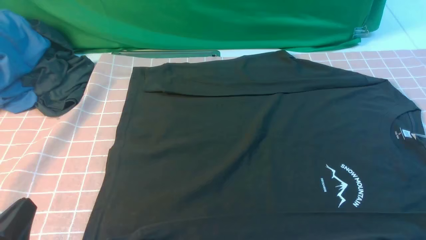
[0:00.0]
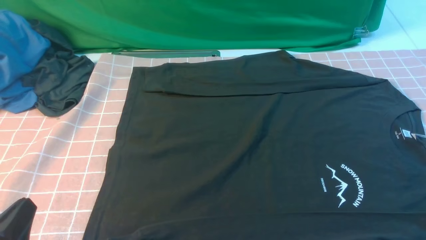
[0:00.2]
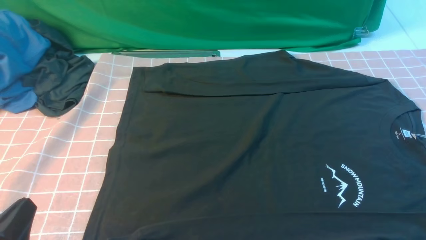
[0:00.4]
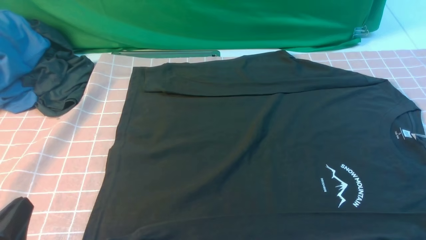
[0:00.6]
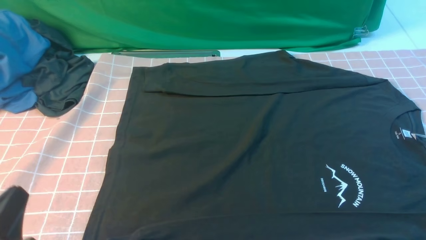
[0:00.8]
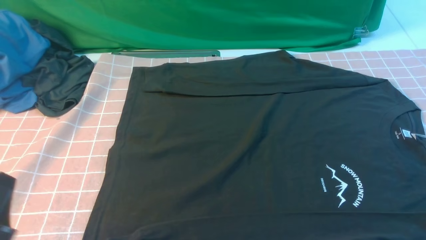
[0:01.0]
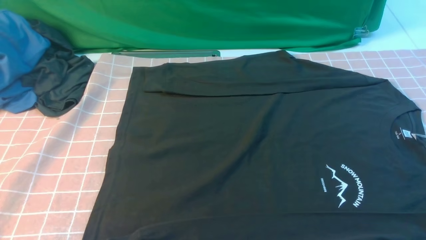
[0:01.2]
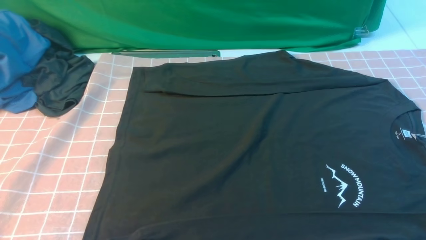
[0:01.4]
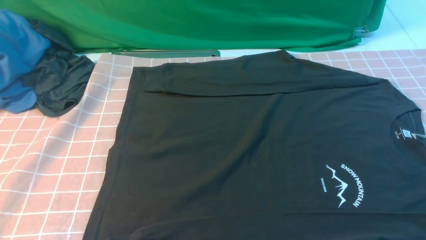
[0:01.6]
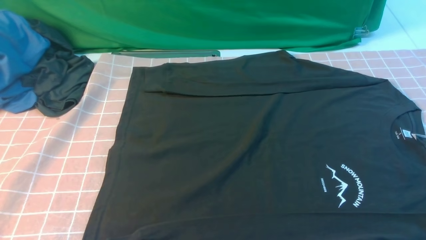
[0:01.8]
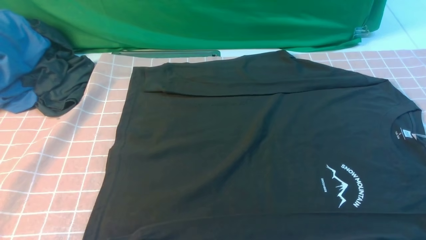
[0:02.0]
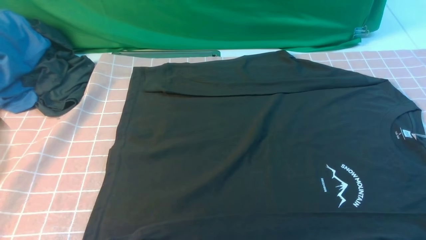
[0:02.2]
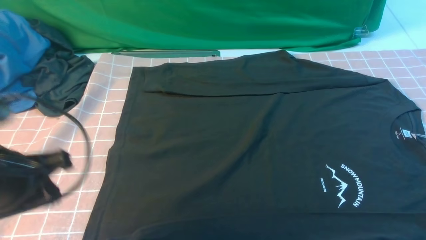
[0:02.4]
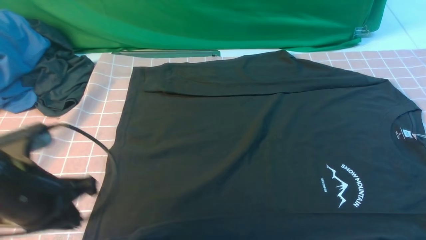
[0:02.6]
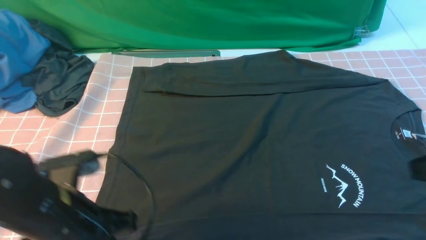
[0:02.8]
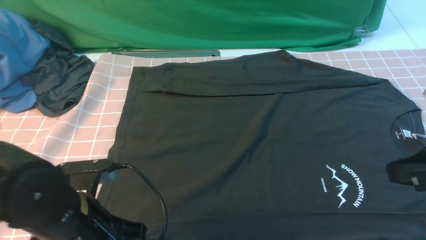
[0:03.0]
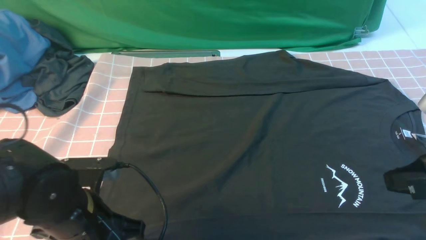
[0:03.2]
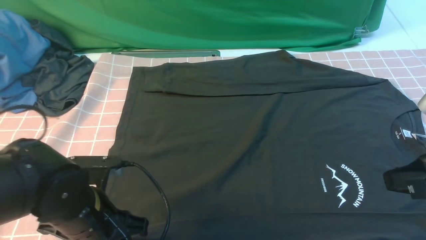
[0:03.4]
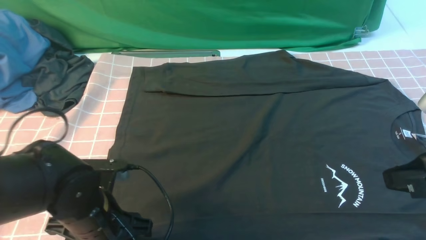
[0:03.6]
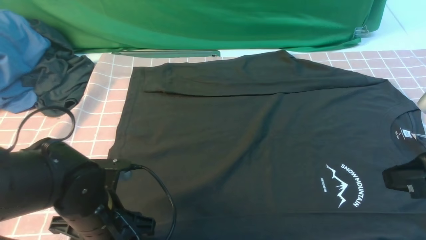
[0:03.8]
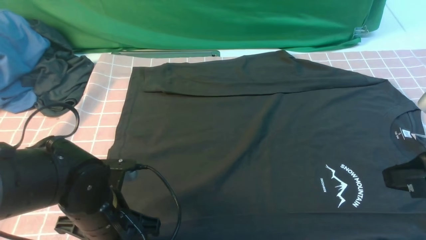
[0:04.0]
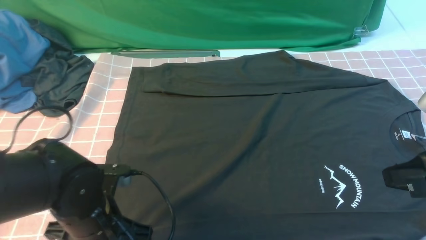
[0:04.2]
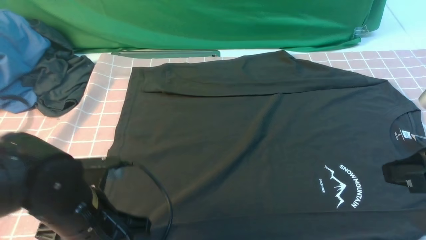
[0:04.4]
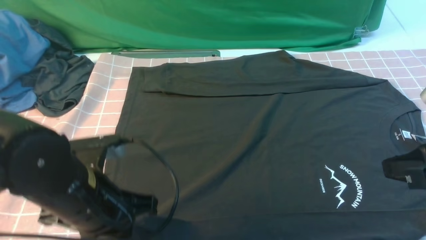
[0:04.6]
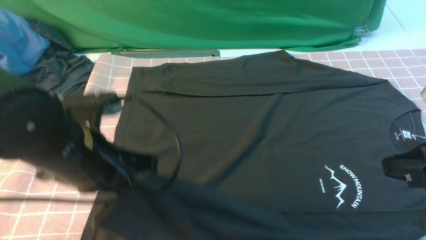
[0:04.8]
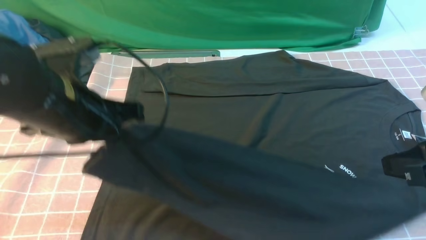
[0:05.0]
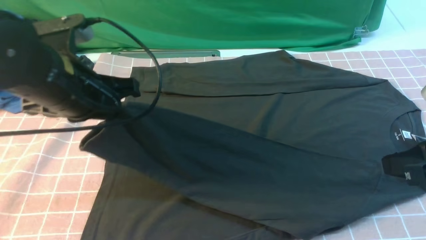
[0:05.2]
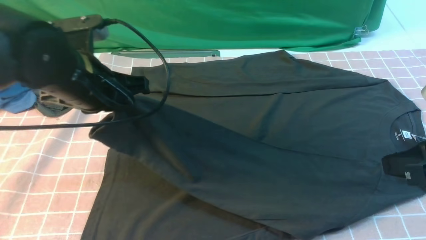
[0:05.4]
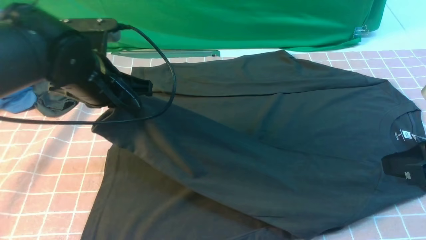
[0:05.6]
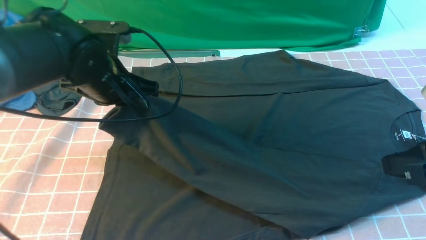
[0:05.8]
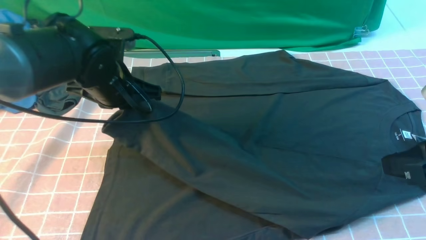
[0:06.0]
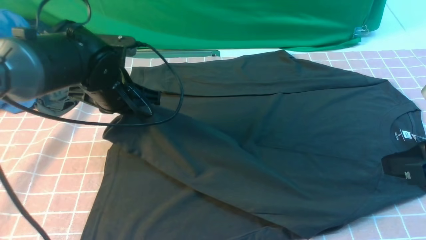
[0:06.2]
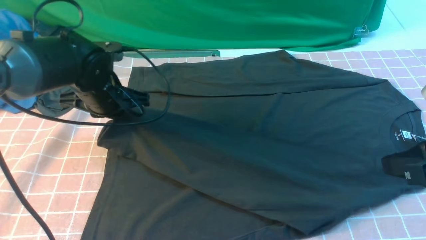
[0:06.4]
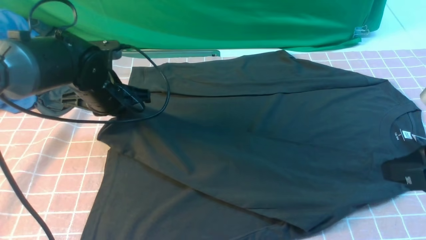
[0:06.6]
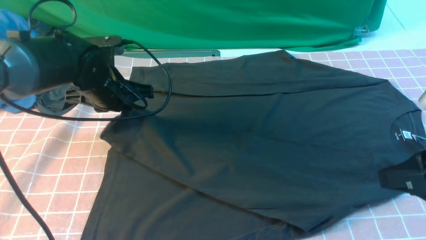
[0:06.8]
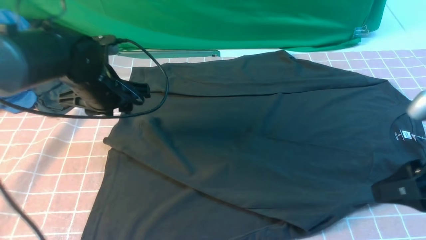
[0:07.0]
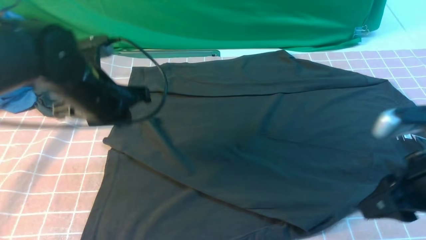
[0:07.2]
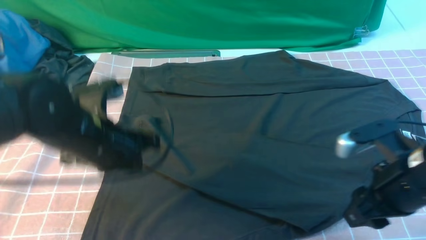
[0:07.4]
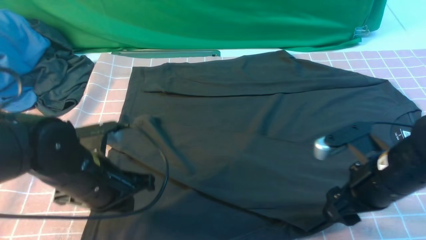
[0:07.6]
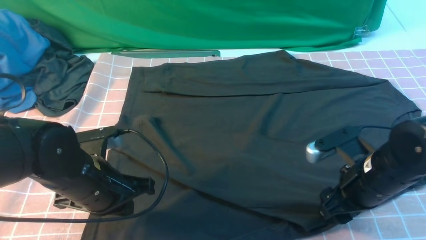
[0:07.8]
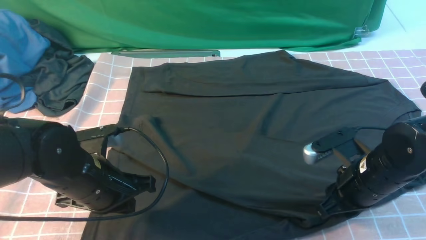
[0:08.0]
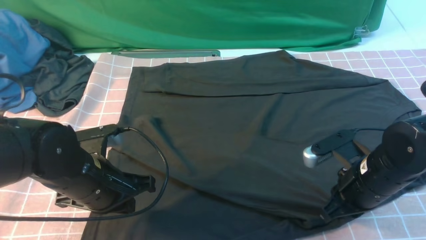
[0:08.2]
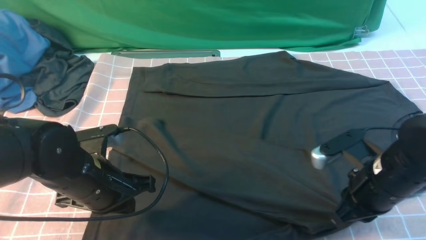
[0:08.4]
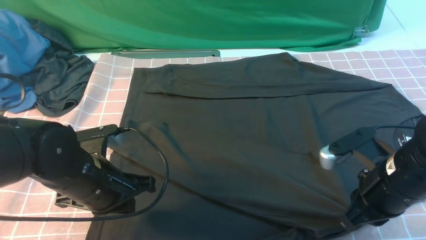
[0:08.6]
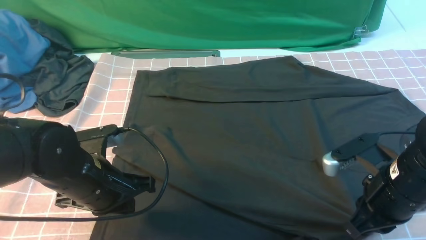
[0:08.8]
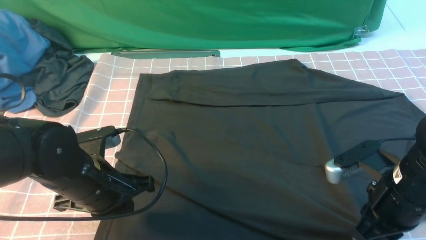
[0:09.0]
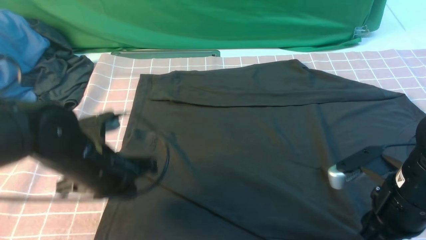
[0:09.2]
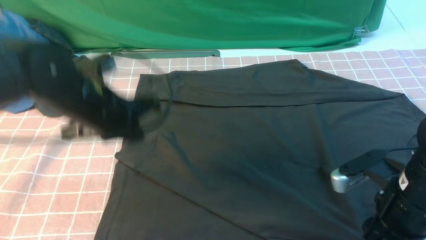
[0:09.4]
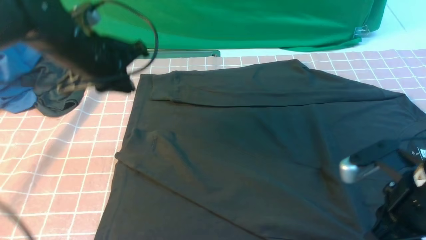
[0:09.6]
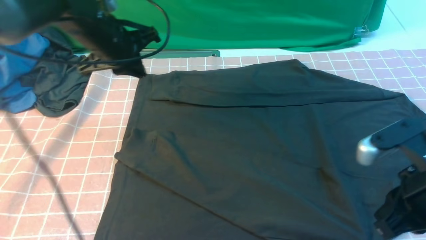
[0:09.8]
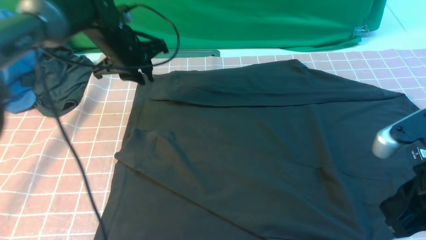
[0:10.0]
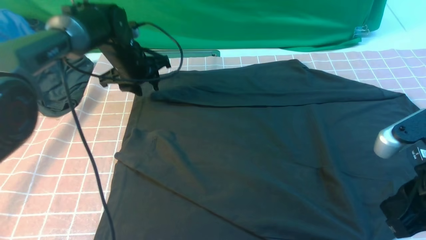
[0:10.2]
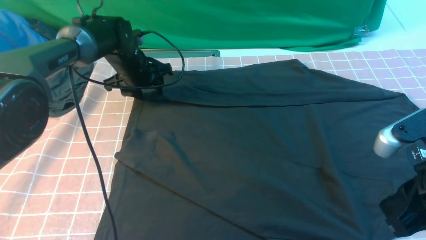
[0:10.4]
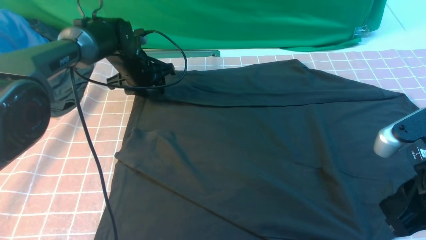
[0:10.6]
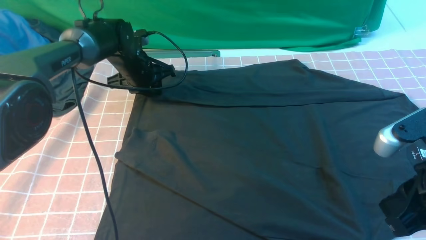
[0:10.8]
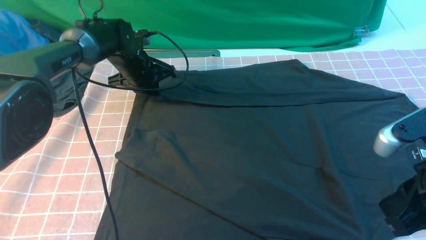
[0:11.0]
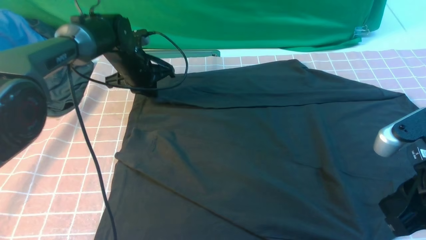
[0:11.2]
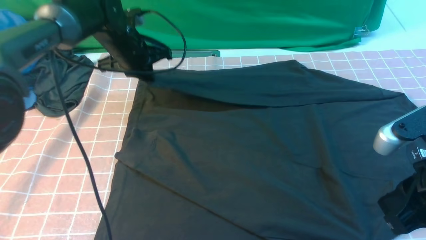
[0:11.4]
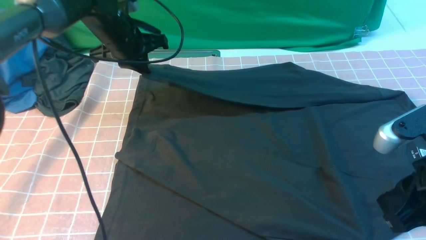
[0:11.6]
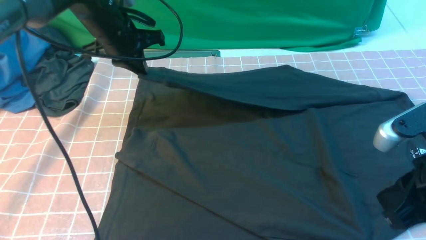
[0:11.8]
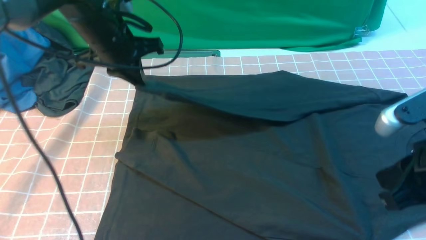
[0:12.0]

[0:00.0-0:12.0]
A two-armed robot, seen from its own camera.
Step, 0:00.0 to 0:04.6: use the left arm to clamp the cuff closest to it.
Step, 0:04.8 to 0:06.8: use the left arm to drag and place the cuff at the centered position on the left edge of the fabric.
Step, 0:07.2 to 0:11.2: use the left arm to clamp the cuff farthest from it.
0:00.0 to 0:01.6: The left gripper is displaced upward by some 5 cm.
0:01.6 to 0:03.0: The left gripper goes about 15 cm forward, to the right and downward, while the right gripper is displaced forward and upward by roughly 15 cm, and closes up.
0:03.0 to 0:04.4: The left gripper opens, then closes once more.
0:04.4 to 0:06.0: The left gripper shifts some 15 cm forward.
0:06.0 to 0:07.6: The left gripper is displaced backward by some 10 cm, and opens, then closes again, while the right gripper travels downward, forward and to the left by approximately 15 cm, and opens up.
0:07.6 to 0:09.0: The right gripper closes its fingers.
0:09.0 to 0:10.4: The right gripper travels upward by approximately 10 cm; the left gripper heads forward, covering approximately 25 cm, and opens up.
0:10.4 to 0:12.0: The left gripper moves upward and backward, some 15 cm, and closes its fingers.

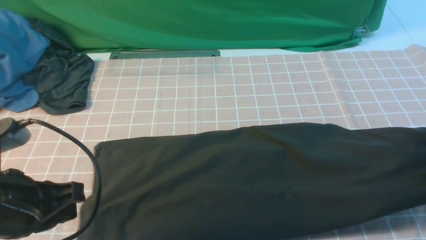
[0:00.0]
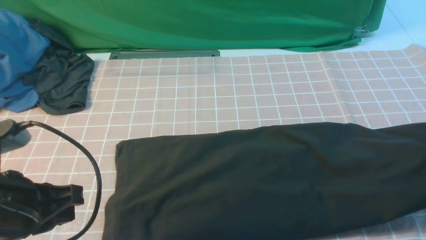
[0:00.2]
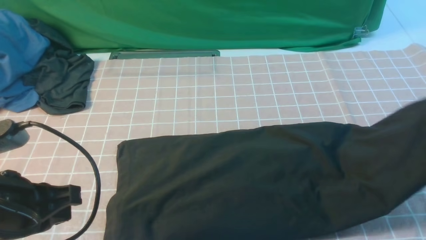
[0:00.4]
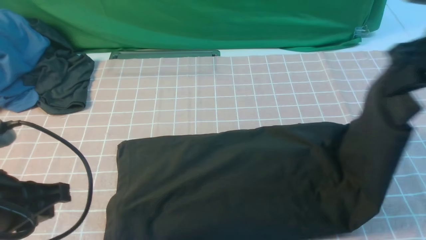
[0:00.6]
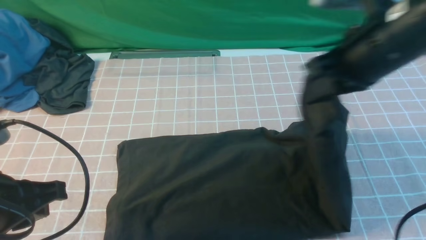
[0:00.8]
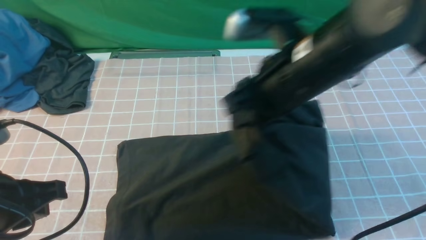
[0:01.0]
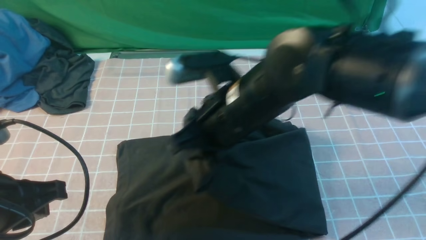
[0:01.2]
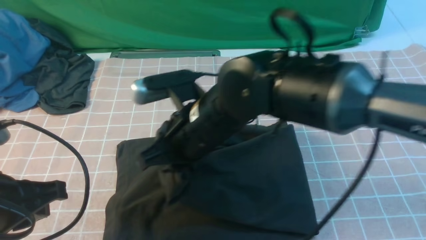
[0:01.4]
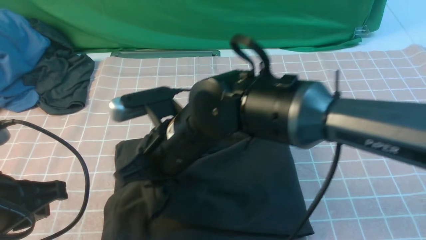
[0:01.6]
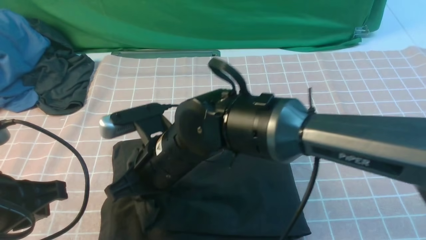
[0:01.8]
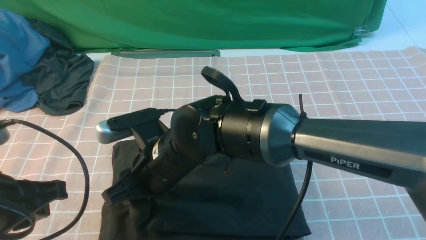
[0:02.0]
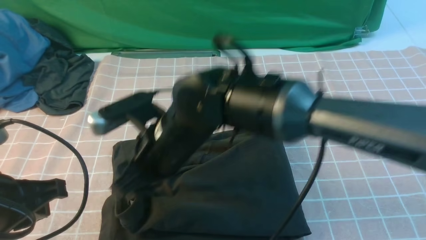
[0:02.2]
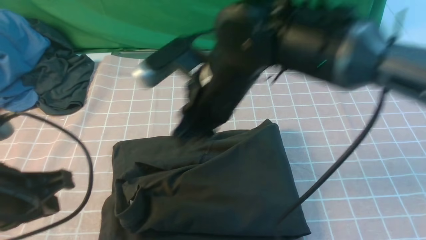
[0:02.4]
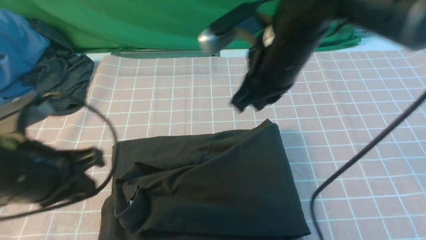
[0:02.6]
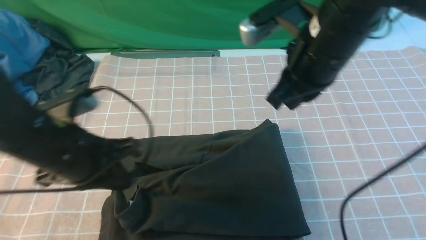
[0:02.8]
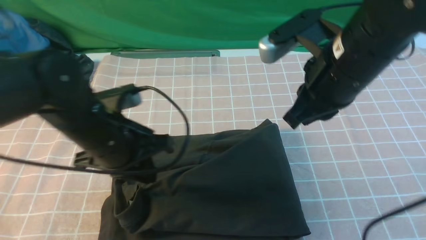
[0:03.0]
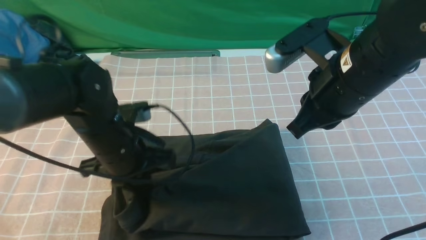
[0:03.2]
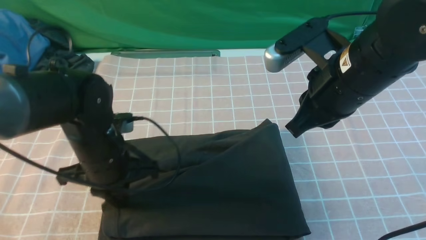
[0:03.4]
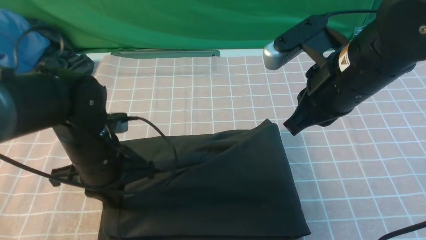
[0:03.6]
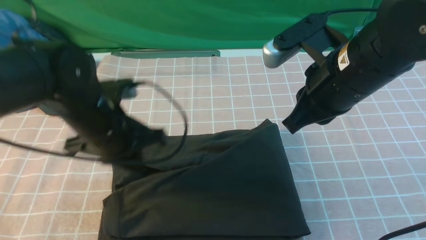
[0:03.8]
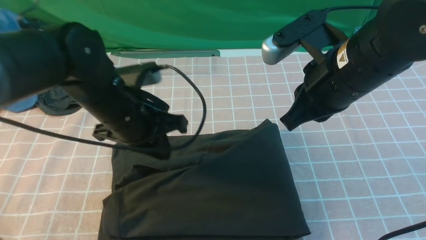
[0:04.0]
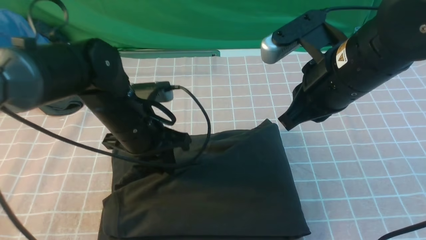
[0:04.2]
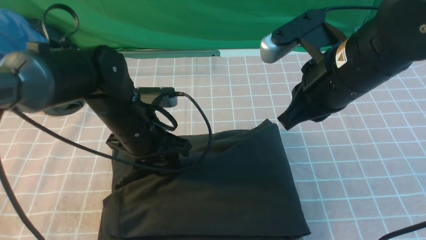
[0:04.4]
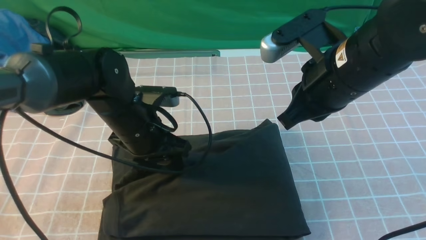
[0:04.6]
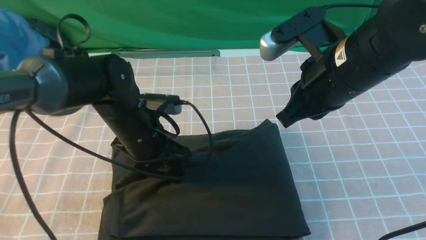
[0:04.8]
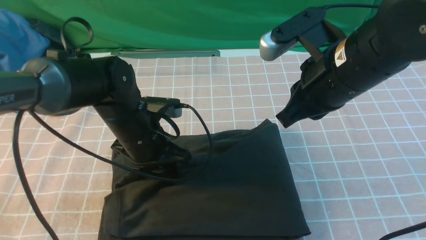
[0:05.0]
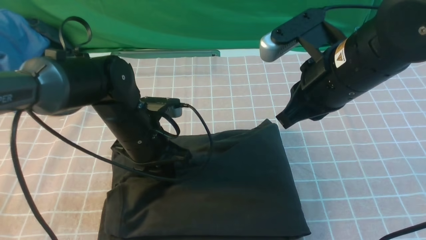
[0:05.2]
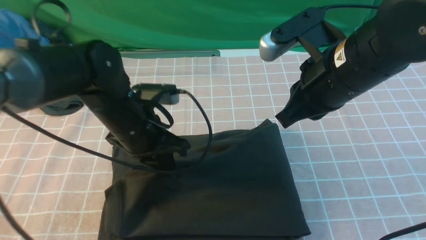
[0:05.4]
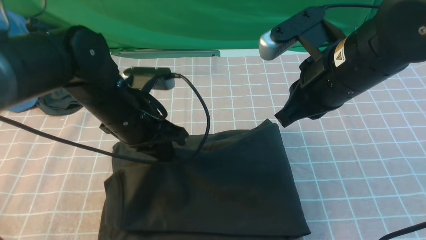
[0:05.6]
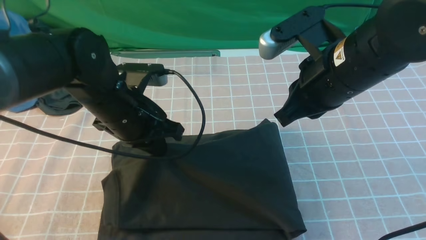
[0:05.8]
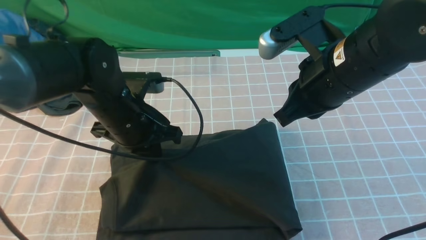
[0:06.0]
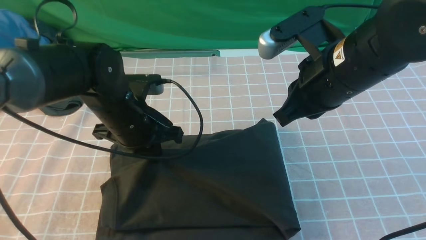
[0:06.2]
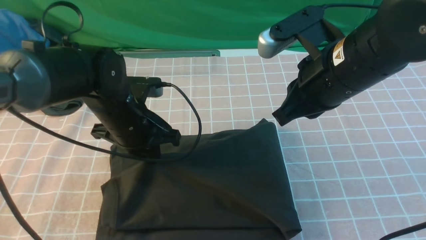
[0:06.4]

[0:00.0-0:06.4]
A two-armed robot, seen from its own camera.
Step, 0:00.0 to 0:02.2: use the right arm to drag the right edge of the fabric to the left and folds it over the left edge.
0:00.0 to 0:01.6: The right gripper heads to the left, covering about 40 cm.
0:01.6 to 0:03.2: The right gripper moves to the right and upward, roughly 20 cm, and opens, then closes once more. Meanwhile the left gripper moves forward, to the right and downward, roughly 15 cm.
0:03.2 to 0:04.8: The left gripper shifts by approximately 5 cm, and opens.
0:04.8 to 0:06.4: The left gripper closes its fingers.
